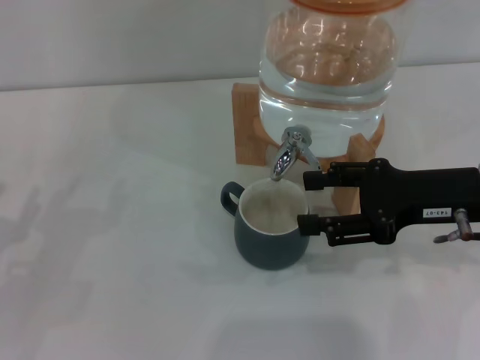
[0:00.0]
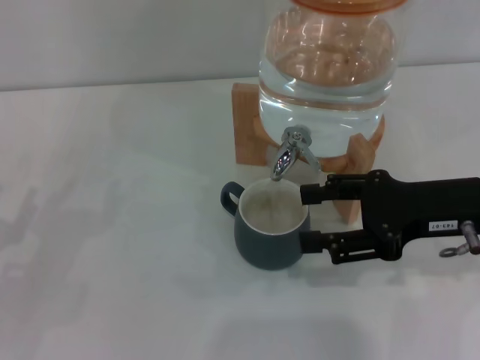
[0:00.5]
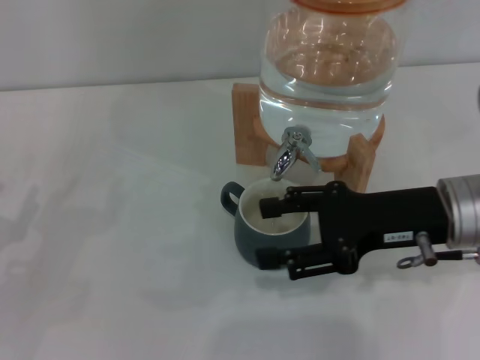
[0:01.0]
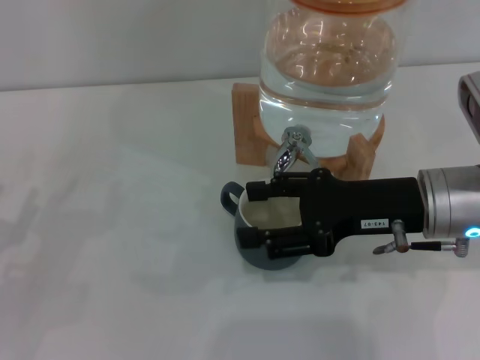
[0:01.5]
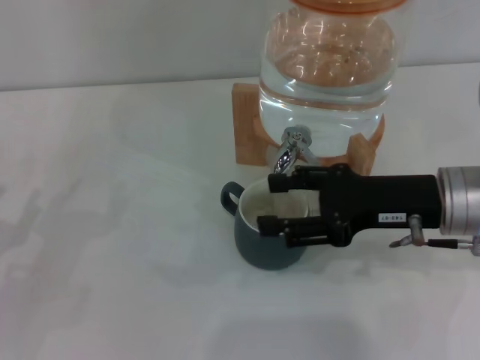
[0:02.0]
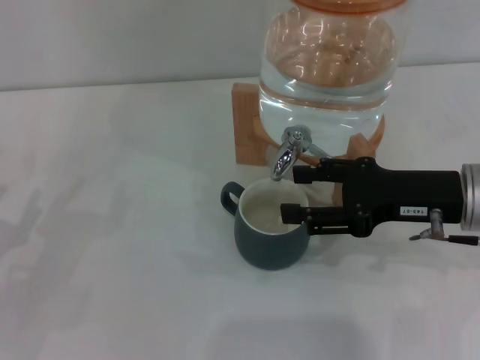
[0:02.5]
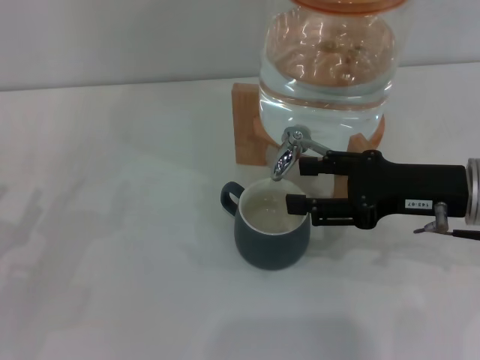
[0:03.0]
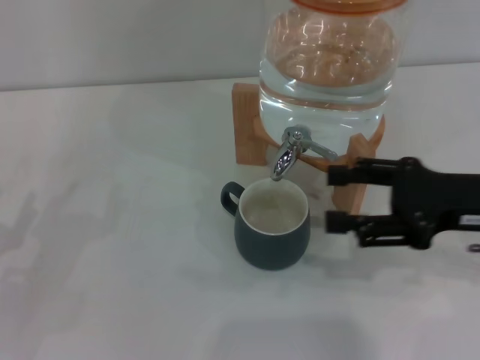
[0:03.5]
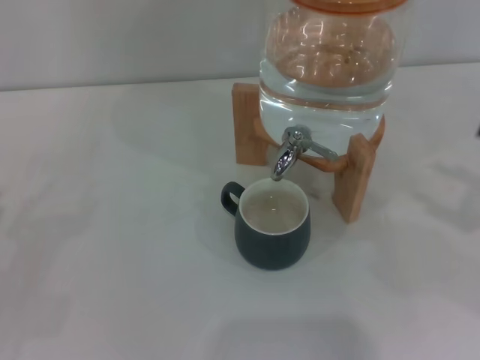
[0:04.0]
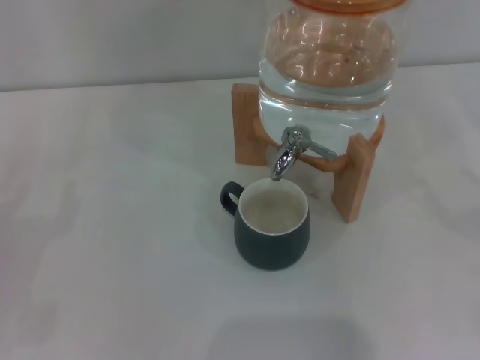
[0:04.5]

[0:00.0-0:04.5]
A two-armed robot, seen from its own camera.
Task of the whole recording: the left gripper pick up the black cup and place it horizontally under the faucet, the right gripper turn on the faucet to fill the cup, and then turn off the faucet.
Step, 0:00.5 to 0:03.5: Close the dispenser valve with the right gripper.
0:00.0 to 0:02.0: The grippers make only small movements.
0:02.0 to 0:04.5: The right gripper is displaced to the right and backward by some 25 cm.

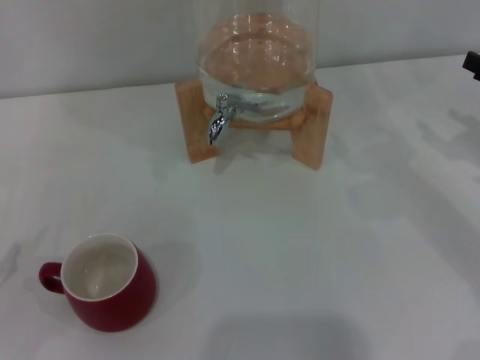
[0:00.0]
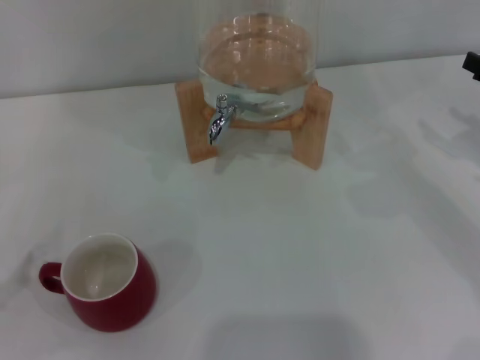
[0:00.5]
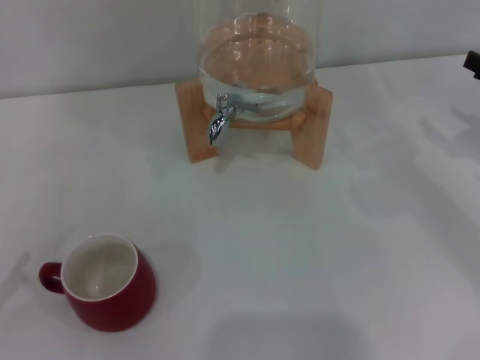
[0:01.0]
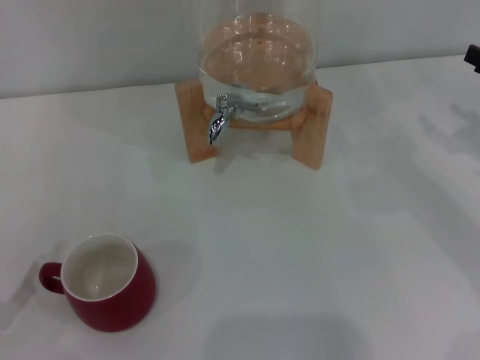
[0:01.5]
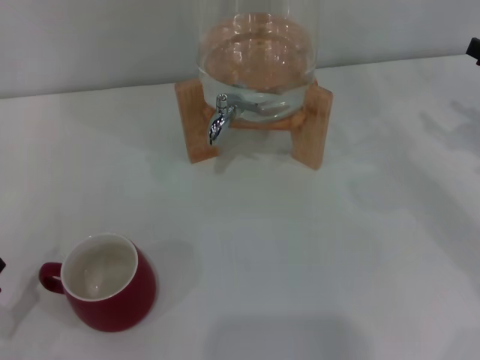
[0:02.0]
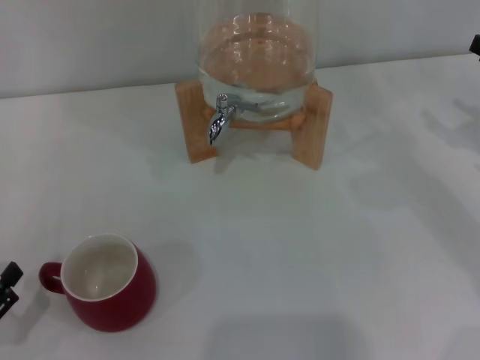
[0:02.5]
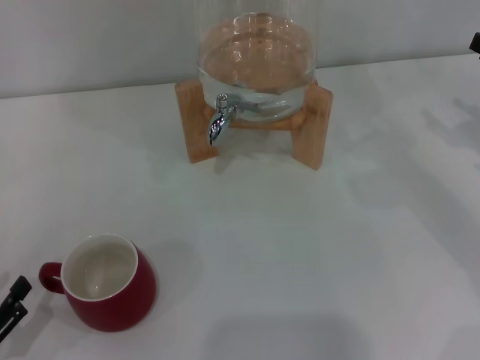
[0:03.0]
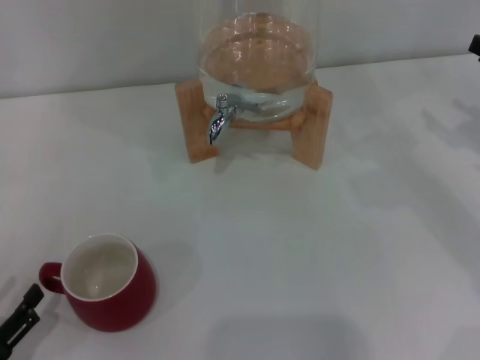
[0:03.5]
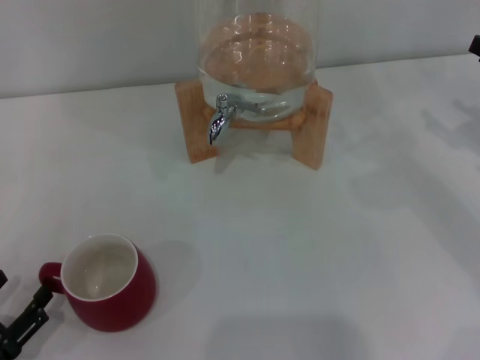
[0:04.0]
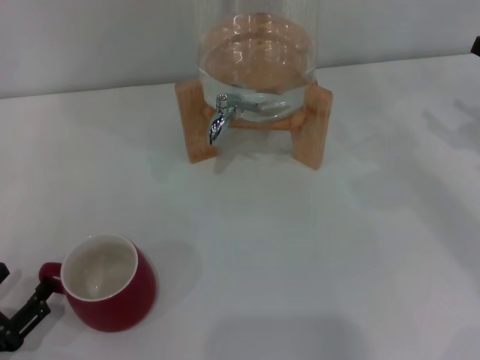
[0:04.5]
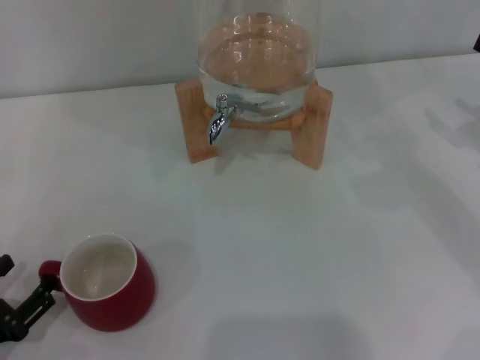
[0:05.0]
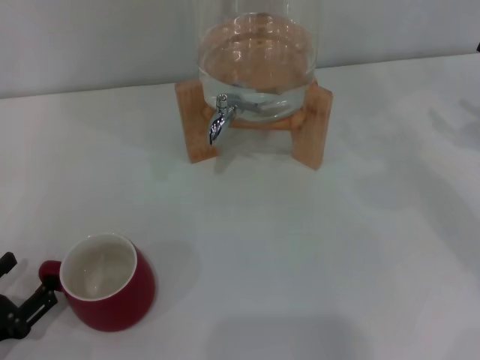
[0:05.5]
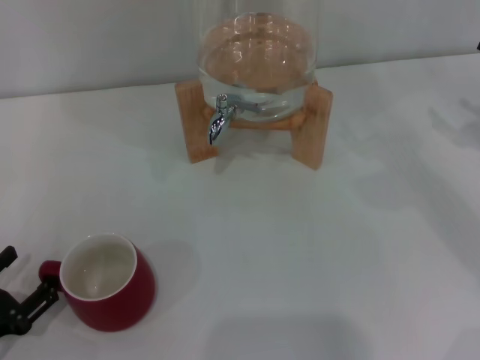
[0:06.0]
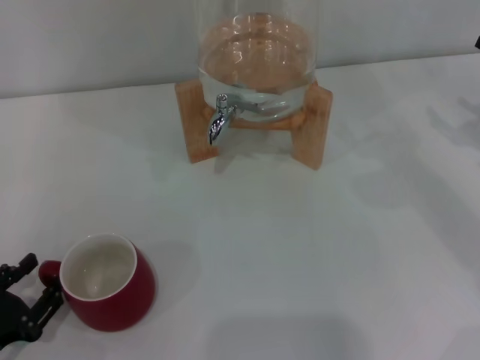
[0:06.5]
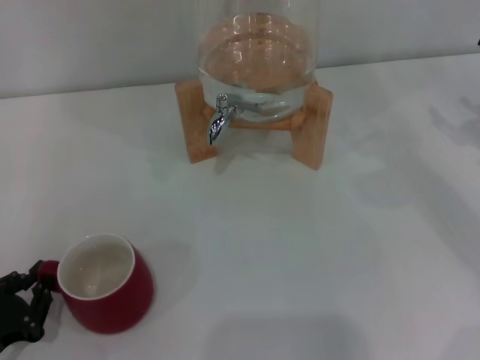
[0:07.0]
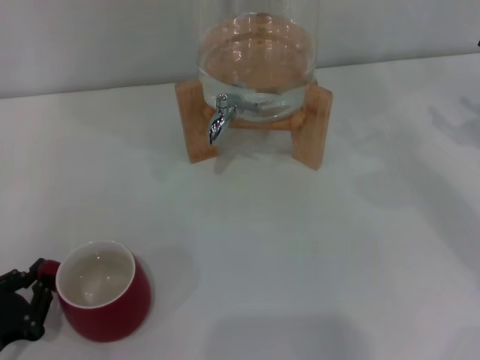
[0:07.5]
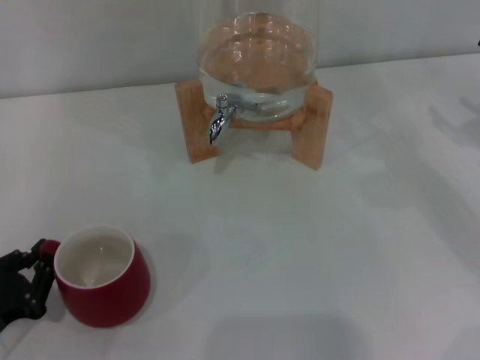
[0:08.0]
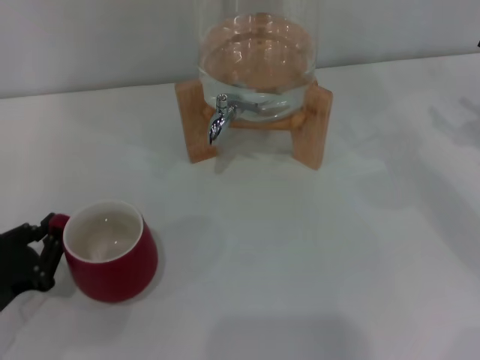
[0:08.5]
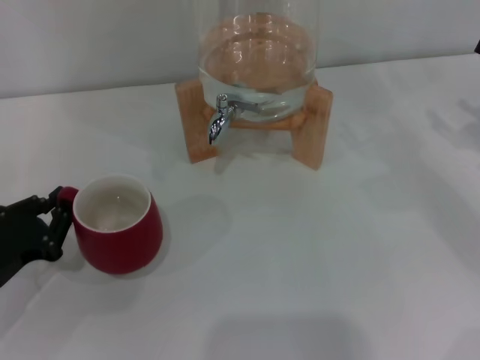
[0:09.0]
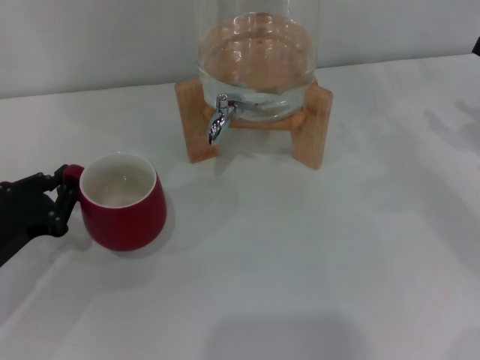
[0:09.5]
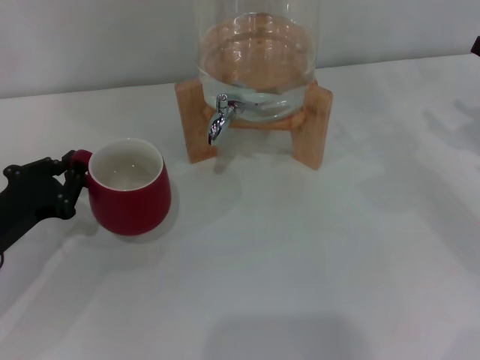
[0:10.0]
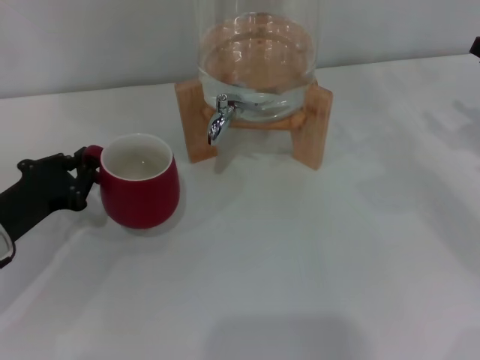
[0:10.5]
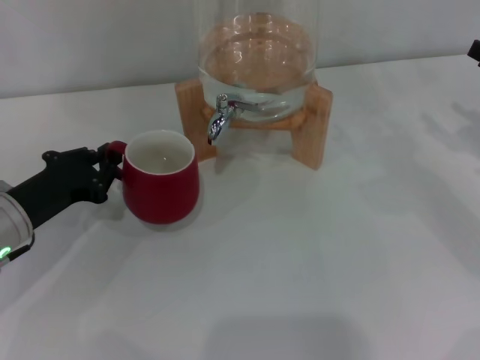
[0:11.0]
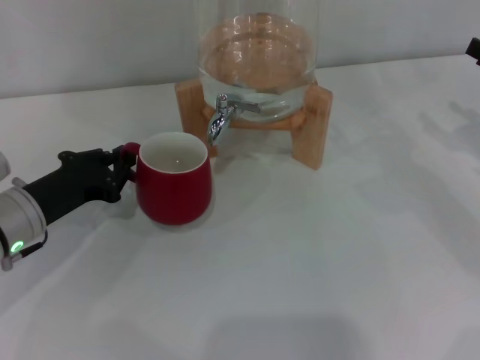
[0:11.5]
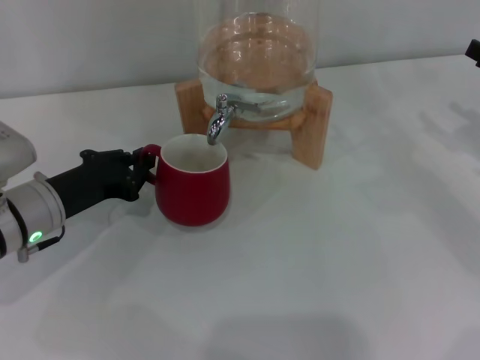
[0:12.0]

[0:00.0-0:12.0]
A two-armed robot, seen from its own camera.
Task of the whole recording: the left gripper pick up the red cup and place it horizontally under the faucet, the right gripper turn on the faucet to fill the cup, and then turn off the faucet.
0:02.0 to 0:06.0: The grippers stay close to where they were, moving slightly.
0:06.0 to 0:08.0: The left gripper closes up.
0:08.0 to 0:10.0: The left gripper is displaced forward by about 10 cm.
0:10.0 to 0:12.0: The left gripper moves to the right, approximately 5 cm.

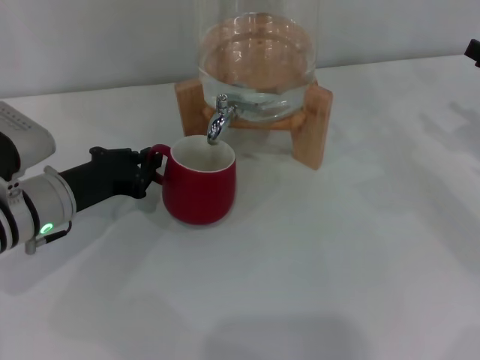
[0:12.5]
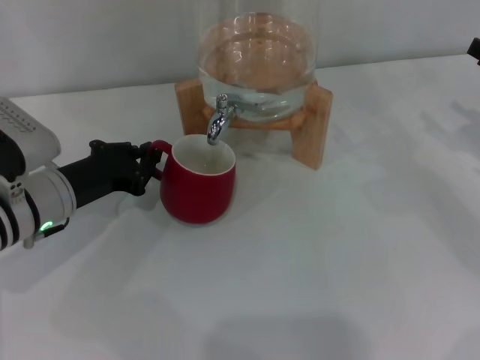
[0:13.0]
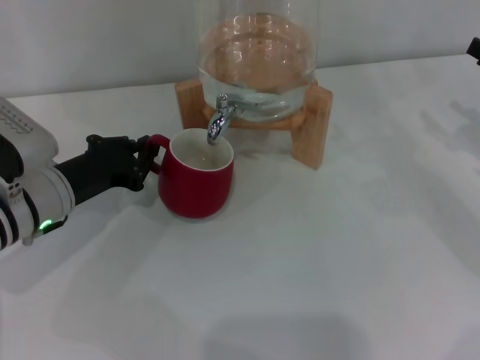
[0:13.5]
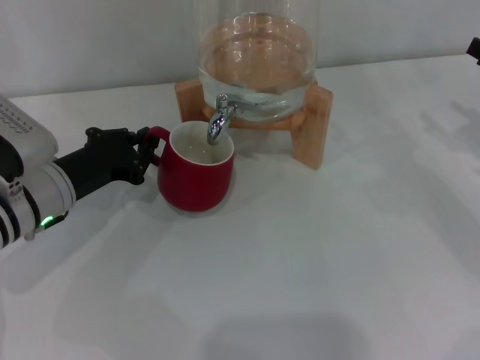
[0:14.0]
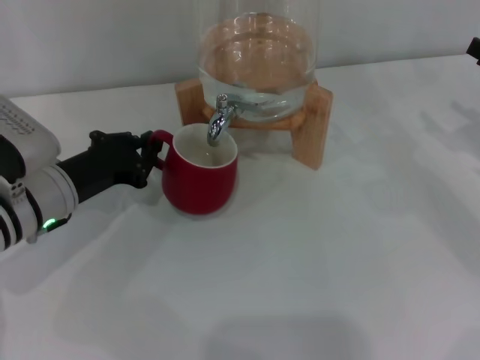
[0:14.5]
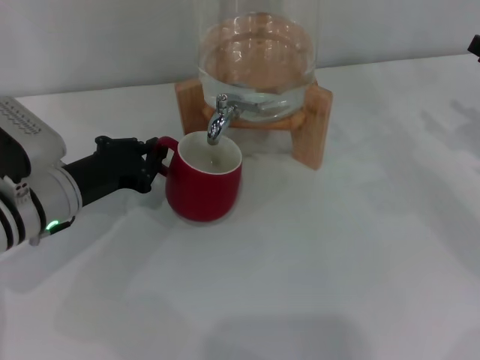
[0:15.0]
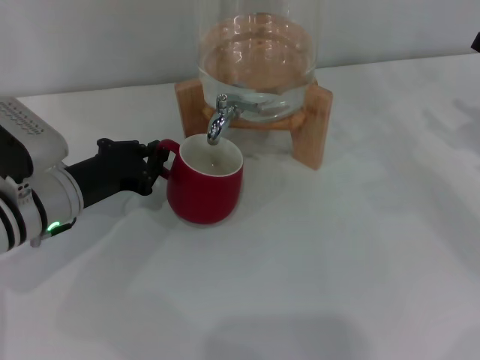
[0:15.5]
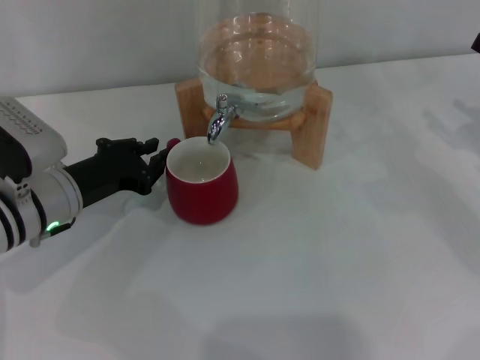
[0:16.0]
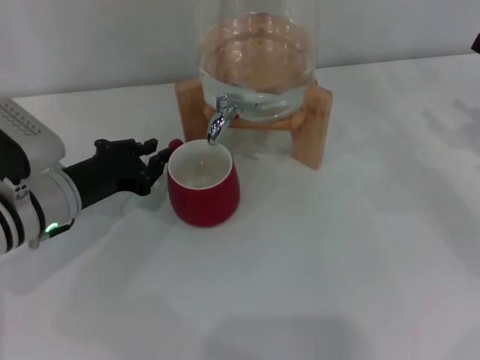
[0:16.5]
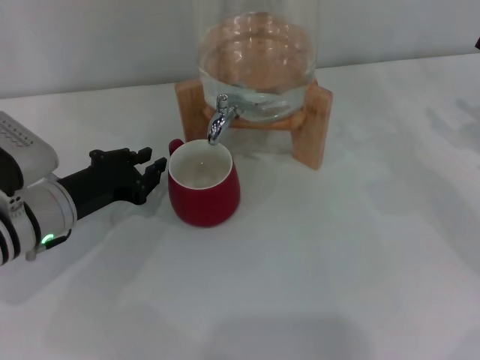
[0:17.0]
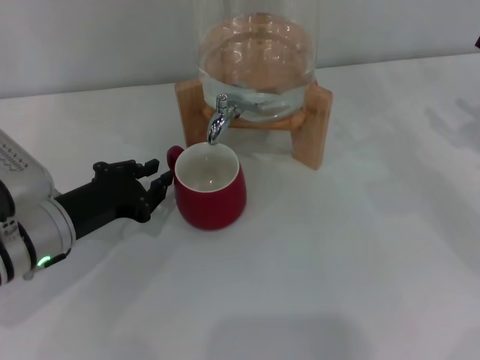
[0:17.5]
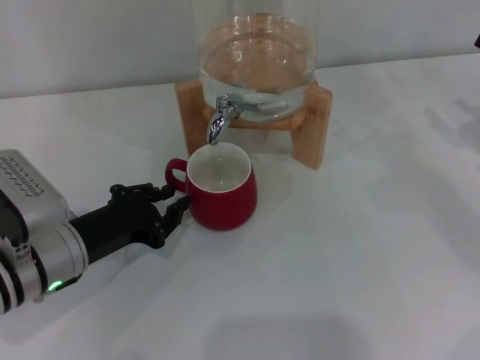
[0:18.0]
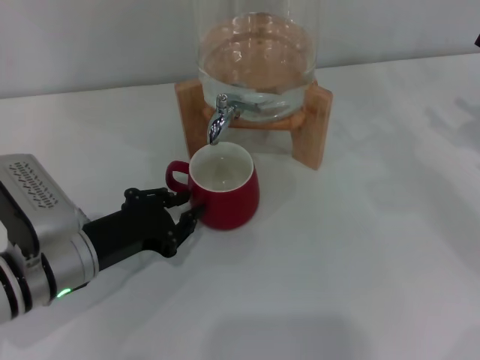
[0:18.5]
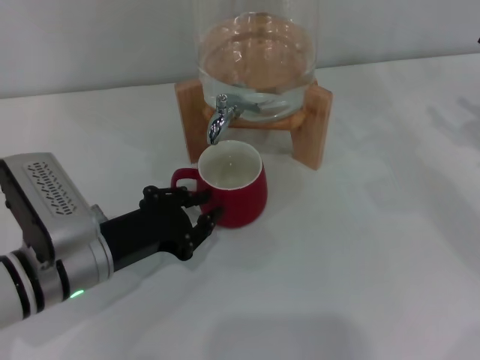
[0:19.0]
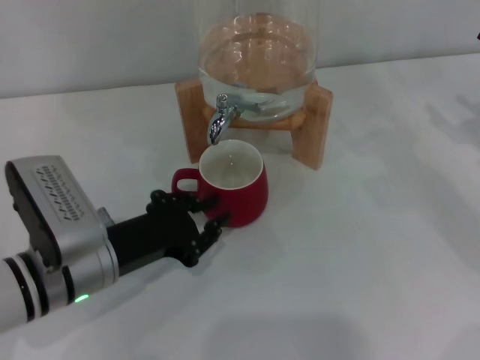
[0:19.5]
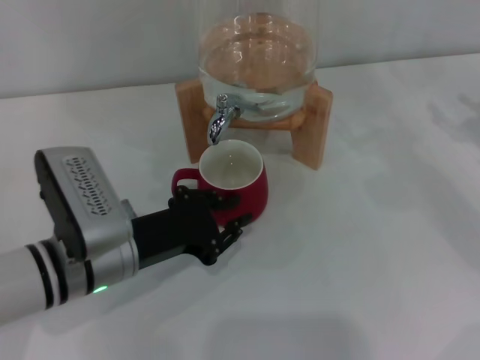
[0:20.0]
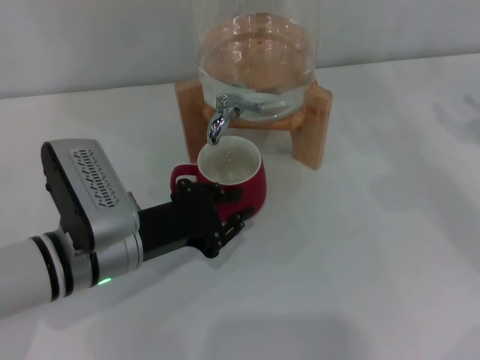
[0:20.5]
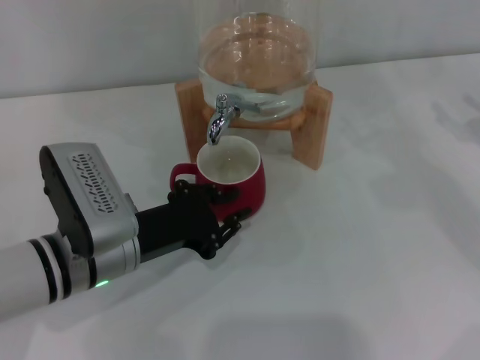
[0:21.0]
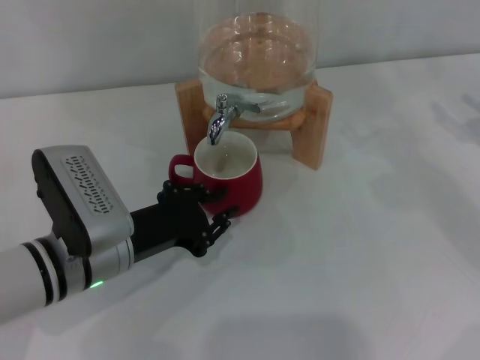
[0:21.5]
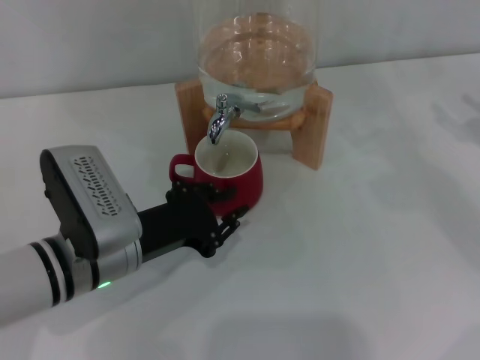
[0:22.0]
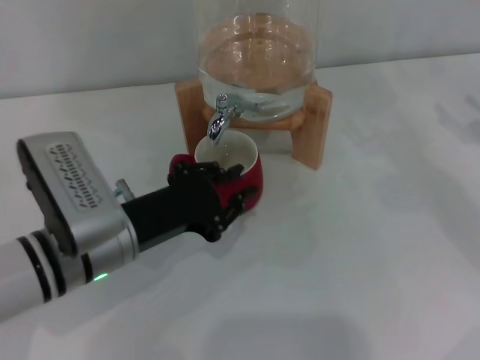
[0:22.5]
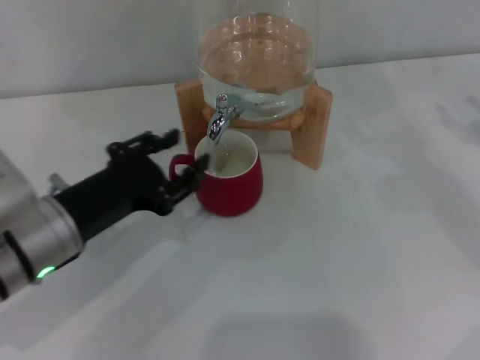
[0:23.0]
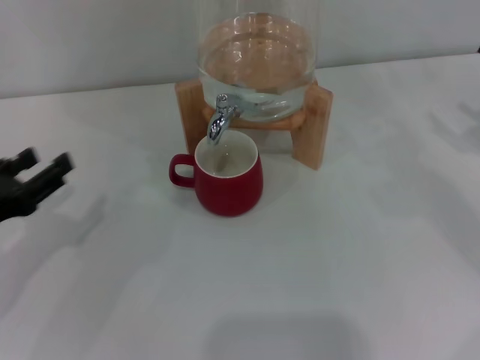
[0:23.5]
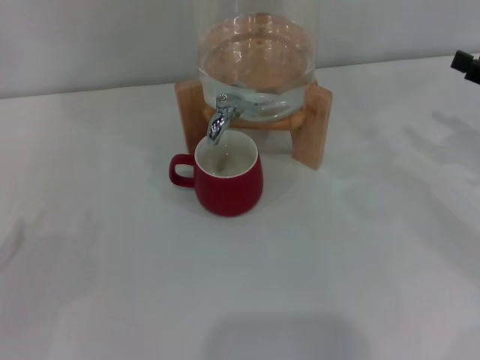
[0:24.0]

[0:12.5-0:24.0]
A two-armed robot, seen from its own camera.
Task of the whole recording: the left gripper pick up the red cup and place it horizontally under the faucet, the right gripper turn on the faucet to fill the cup, and then turn off the faucet.
Step, 0:12.5 to 0:17.0: Move the cup beneath the water dispenser nozzle with the left gripper.
0:12.5 to 0:14.5: The grippers make only small movements.
0:14.5 to 0:16.5: Neither gripper changes place.
0:16.5 to 0:18.5: The left gripper moves backward, some 5 cm.
0:18.5 to 0:22.0: The grippers make only small movements.
0:22.0 to 0:24.0: The left gripper travels to the left by some 20 cm, and opens.
